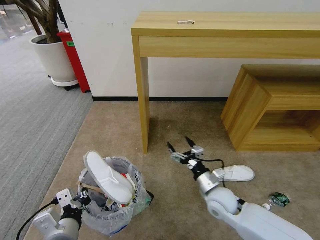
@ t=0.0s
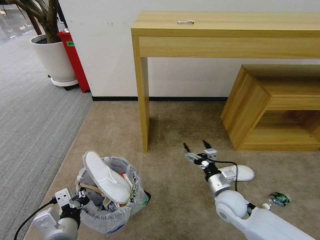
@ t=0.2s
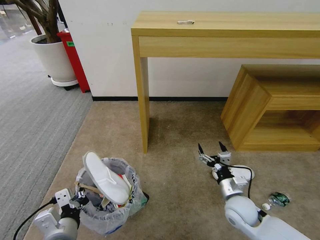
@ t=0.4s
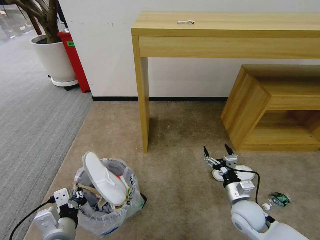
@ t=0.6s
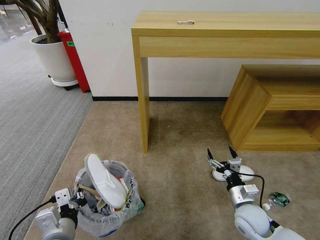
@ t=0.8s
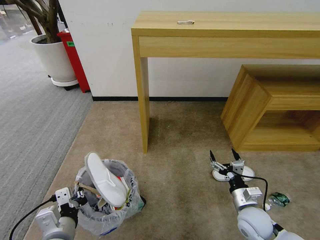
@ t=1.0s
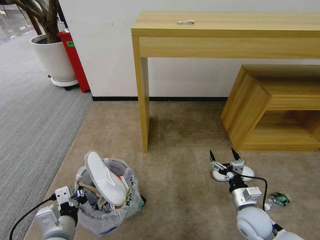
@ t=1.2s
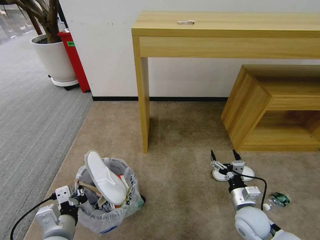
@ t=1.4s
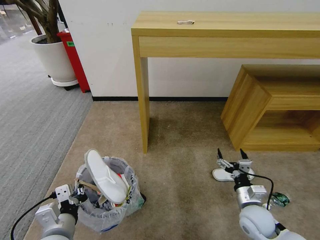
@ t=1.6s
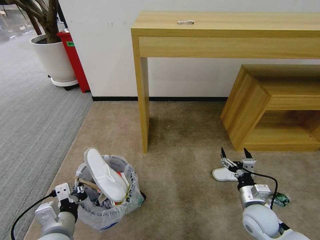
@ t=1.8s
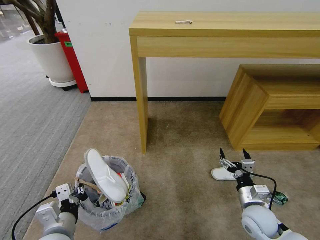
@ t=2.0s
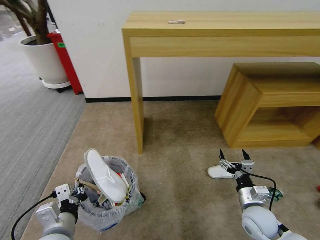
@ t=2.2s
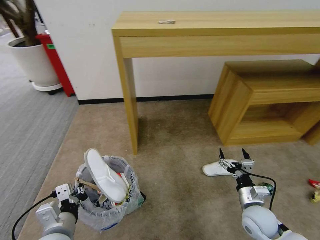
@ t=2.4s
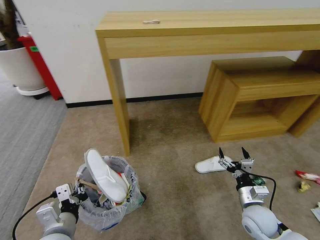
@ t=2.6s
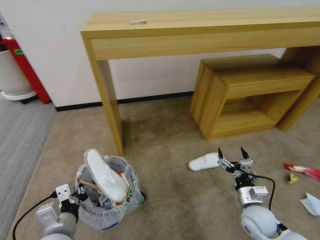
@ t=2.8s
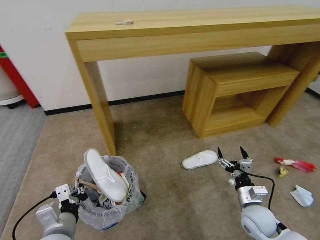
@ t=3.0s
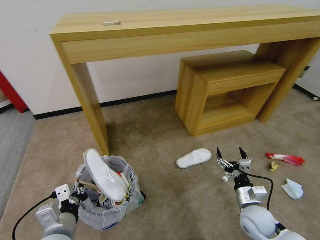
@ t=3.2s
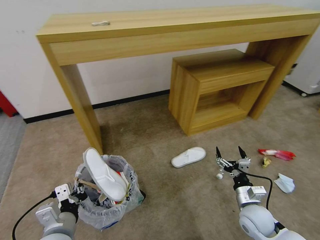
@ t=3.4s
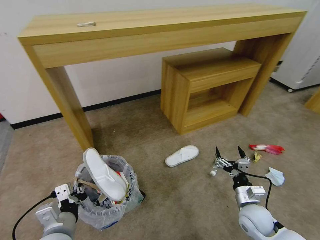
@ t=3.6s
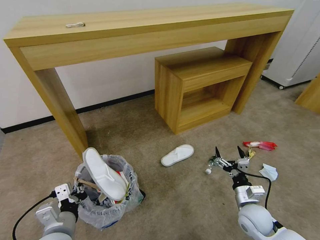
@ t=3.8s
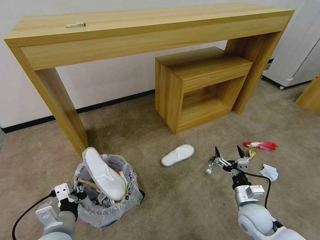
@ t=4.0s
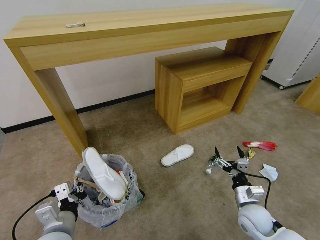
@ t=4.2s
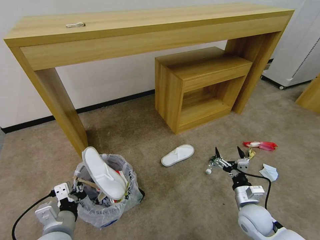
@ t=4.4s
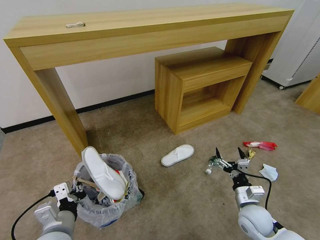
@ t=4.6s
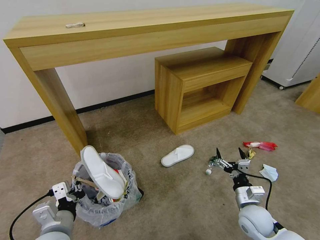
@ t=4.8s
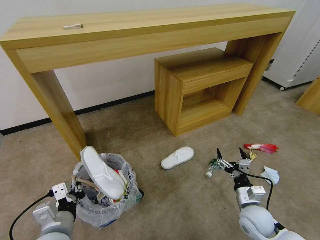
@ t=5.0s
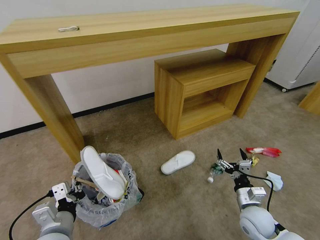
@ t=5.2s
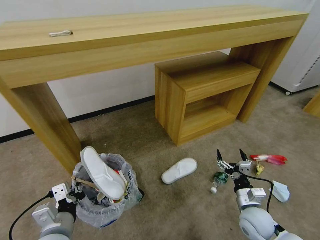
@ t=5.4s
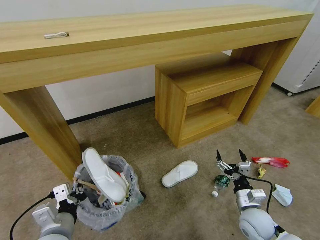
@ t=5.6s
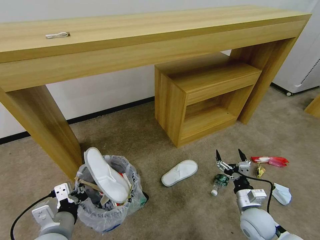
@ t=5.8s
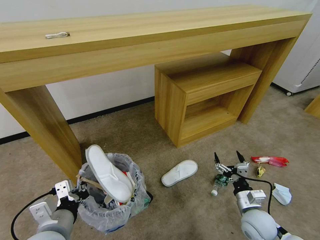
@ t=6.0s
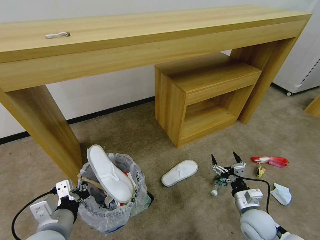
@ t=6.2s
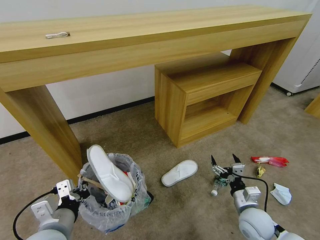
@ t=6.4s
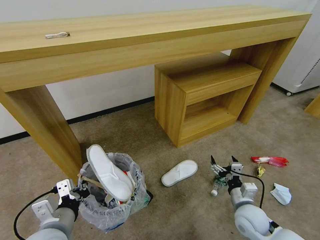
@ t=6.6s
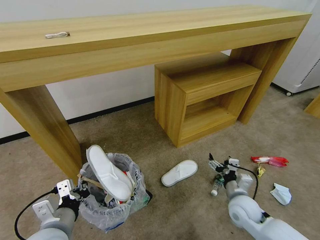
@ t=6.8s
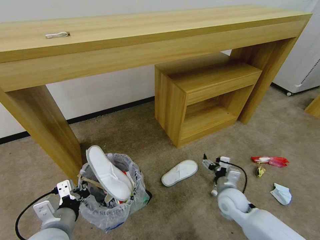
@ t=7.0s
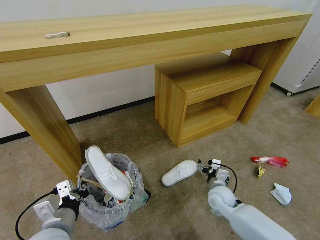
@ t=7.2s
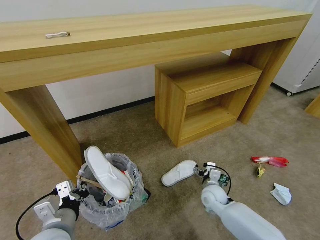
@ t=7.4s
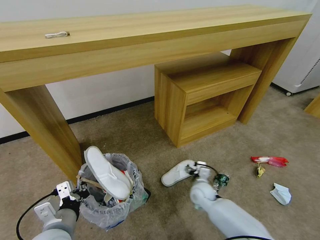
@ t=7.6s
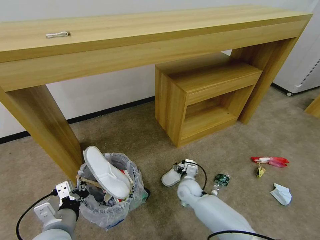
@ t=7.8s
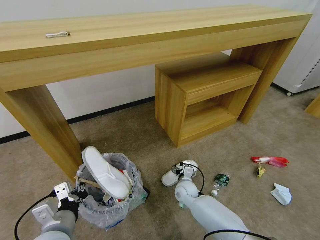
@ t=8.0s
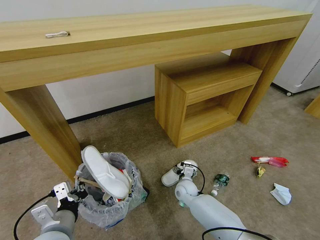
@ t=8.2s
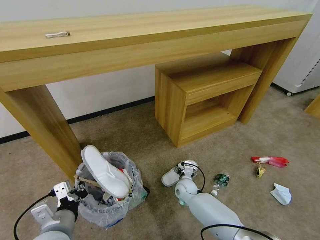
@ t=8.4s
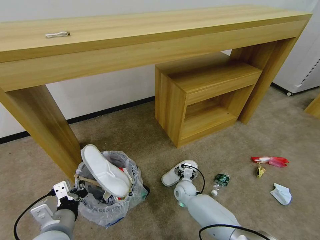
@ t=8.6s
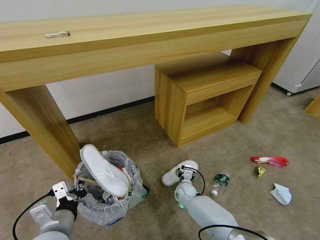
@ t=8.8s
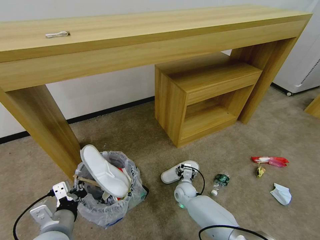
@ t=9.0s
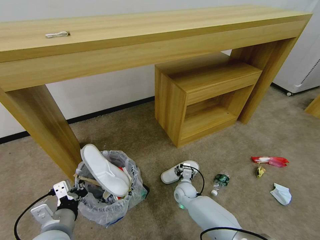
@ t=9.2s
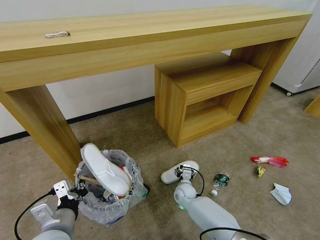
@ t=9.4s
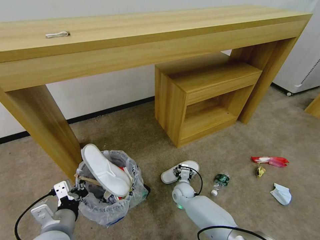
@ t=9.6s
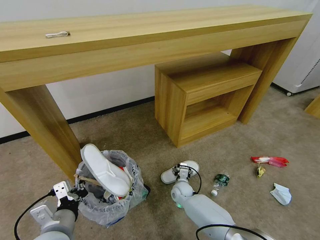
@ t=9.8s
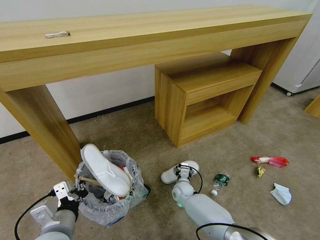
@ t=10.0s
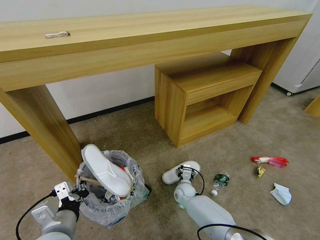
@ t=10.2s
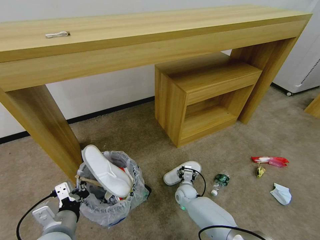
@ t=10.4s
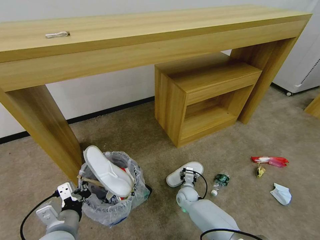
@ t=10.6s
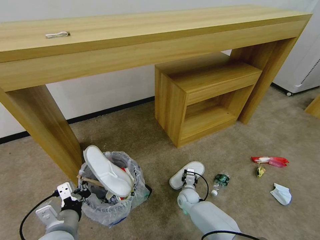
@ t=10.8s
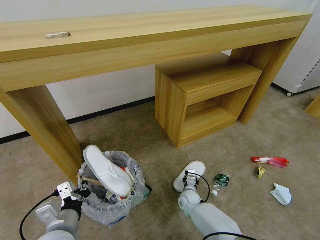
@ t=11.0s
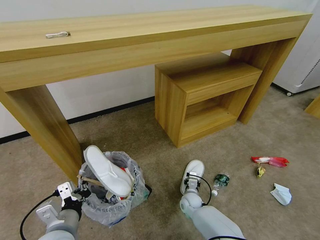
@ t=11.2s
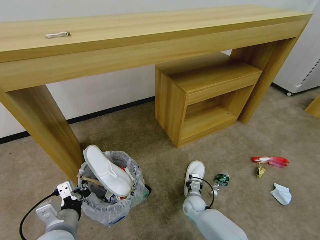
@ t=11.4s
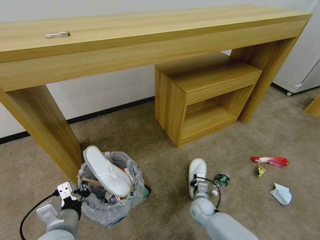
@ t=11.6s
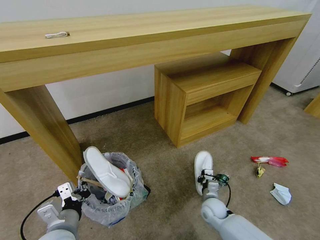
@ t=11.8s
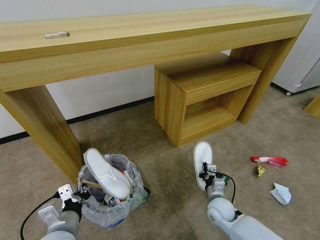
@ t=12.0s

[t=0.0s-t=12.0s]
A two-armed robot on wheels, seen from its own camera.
Task of the whole recording: Pick up the trash bin and place the garbage on the floor into it.
t=0.0s to t=1.6s: The right gripper goes roughly 10 cm to the right and backward.
t=6.0s to t=7.6s: The right gripper heads to the left, forward and downward, covering about 20 cm.
t=7.6s to t=9.0s: The right gripper goes approximately 5 cm downward.
t=9.0s to t=10.4s: The grippers make only small movements.
t=10.4s to t=12.0s: The right gripper is displaced to the right, backward and upward by roughly 15 cm, and closes up.

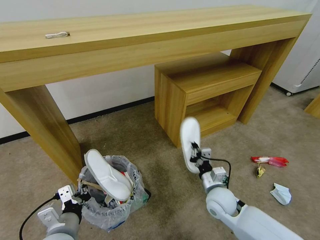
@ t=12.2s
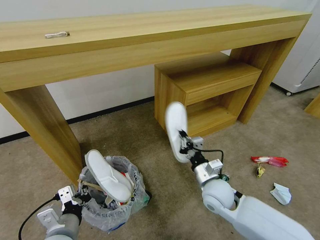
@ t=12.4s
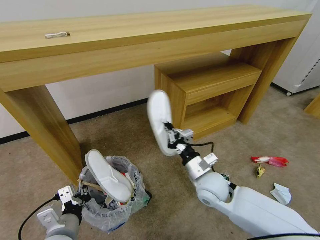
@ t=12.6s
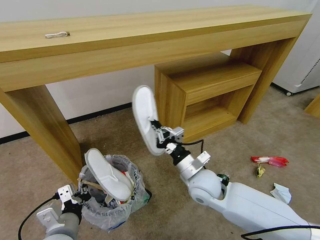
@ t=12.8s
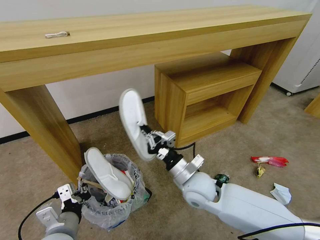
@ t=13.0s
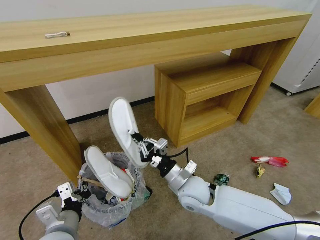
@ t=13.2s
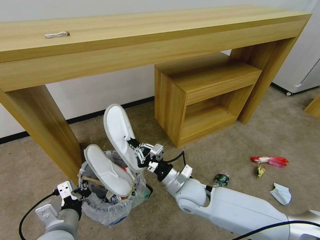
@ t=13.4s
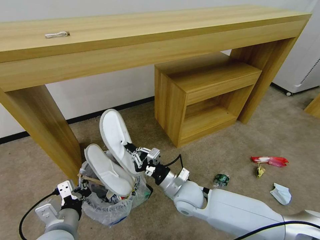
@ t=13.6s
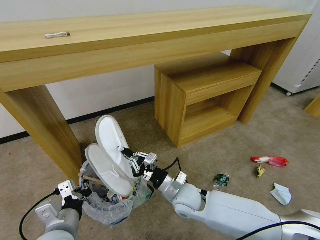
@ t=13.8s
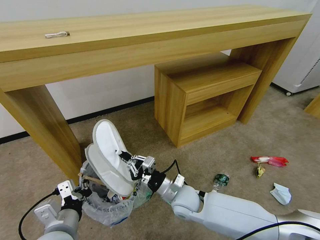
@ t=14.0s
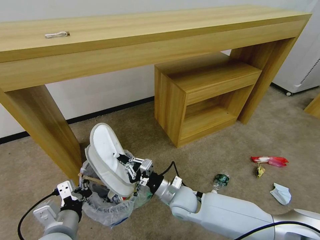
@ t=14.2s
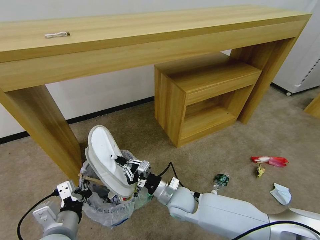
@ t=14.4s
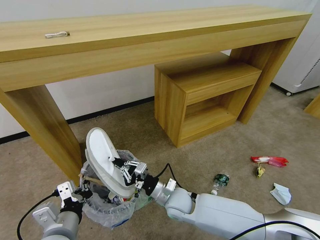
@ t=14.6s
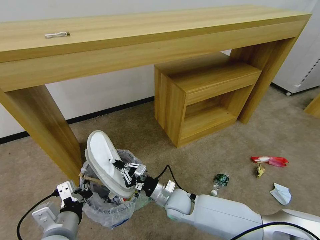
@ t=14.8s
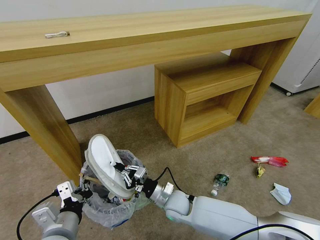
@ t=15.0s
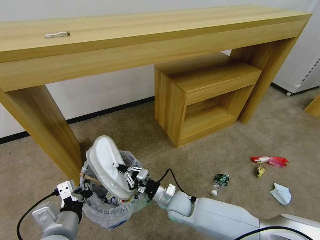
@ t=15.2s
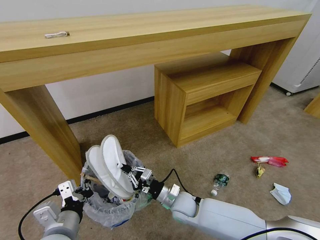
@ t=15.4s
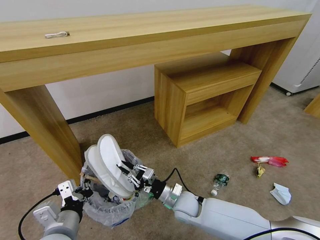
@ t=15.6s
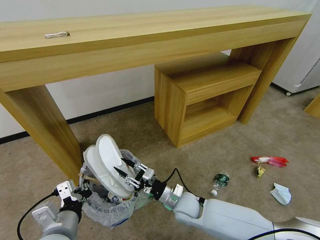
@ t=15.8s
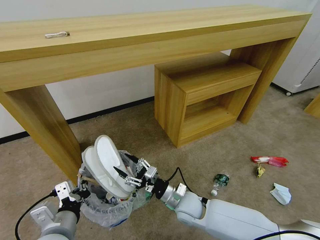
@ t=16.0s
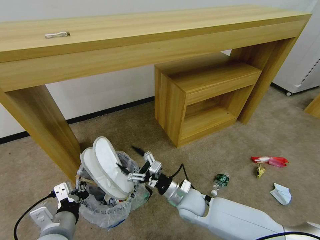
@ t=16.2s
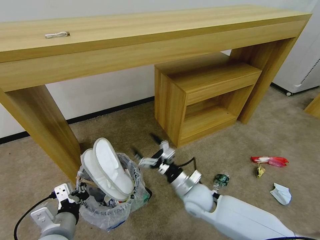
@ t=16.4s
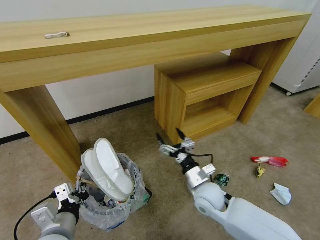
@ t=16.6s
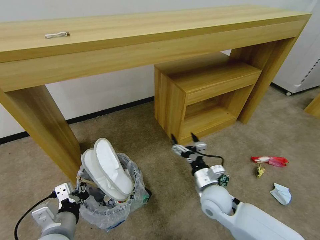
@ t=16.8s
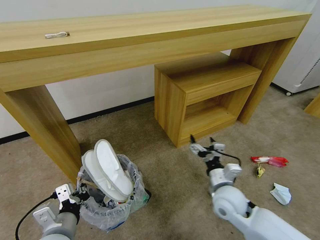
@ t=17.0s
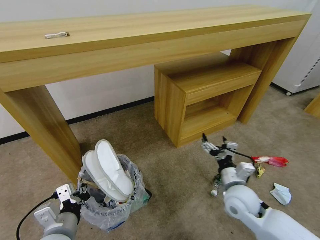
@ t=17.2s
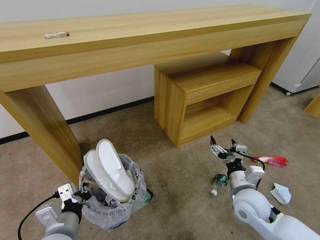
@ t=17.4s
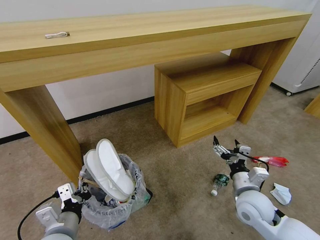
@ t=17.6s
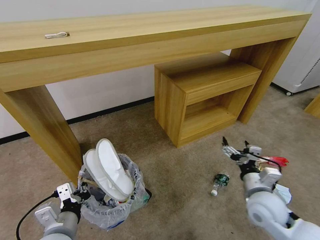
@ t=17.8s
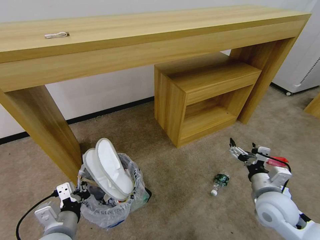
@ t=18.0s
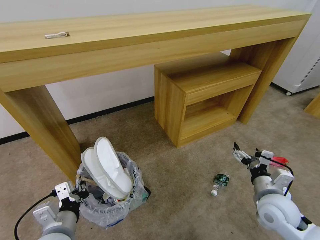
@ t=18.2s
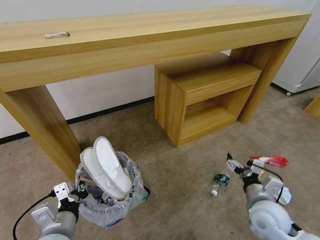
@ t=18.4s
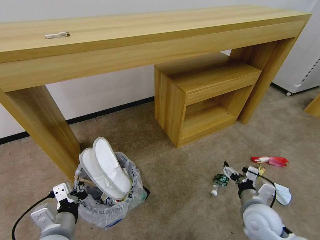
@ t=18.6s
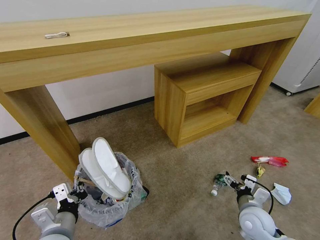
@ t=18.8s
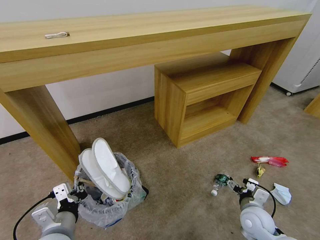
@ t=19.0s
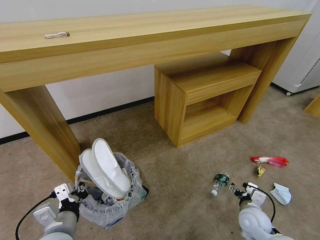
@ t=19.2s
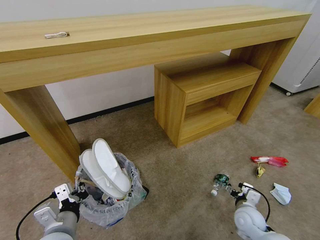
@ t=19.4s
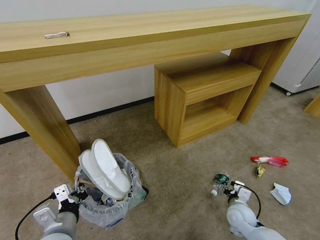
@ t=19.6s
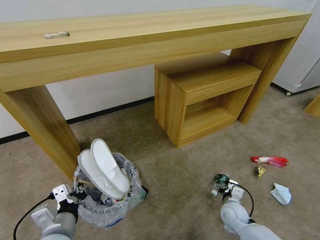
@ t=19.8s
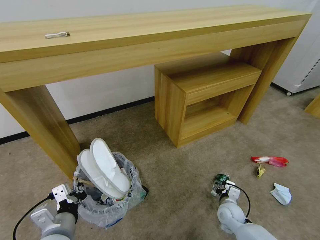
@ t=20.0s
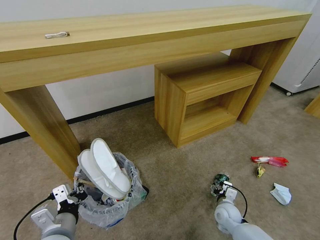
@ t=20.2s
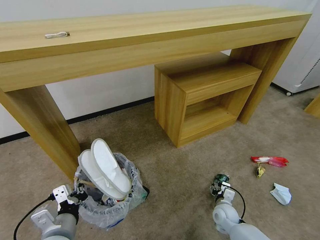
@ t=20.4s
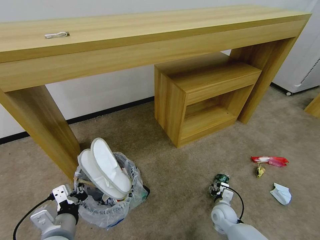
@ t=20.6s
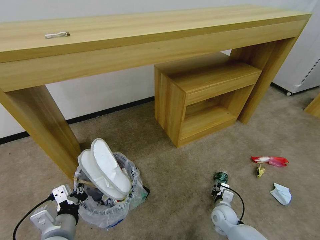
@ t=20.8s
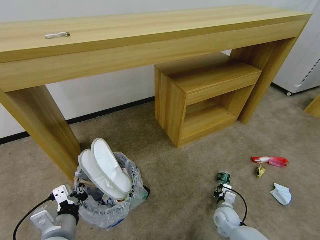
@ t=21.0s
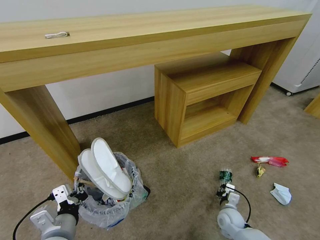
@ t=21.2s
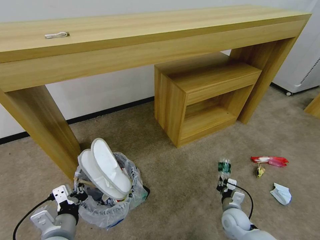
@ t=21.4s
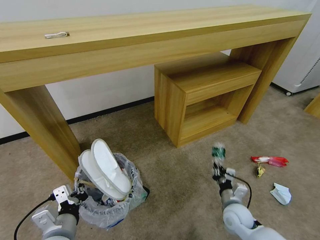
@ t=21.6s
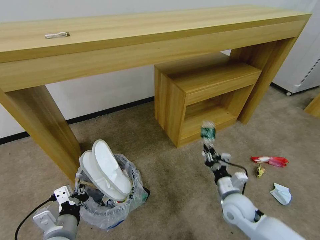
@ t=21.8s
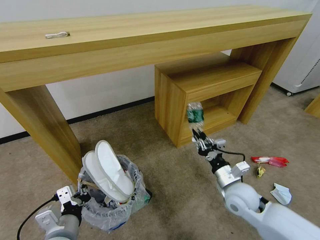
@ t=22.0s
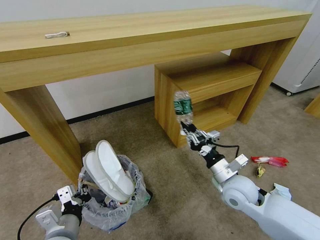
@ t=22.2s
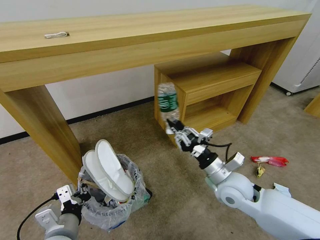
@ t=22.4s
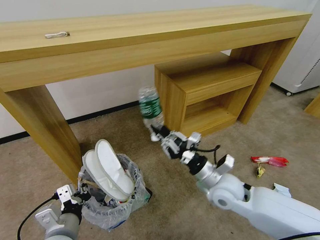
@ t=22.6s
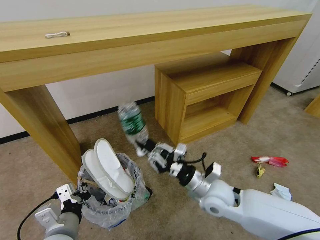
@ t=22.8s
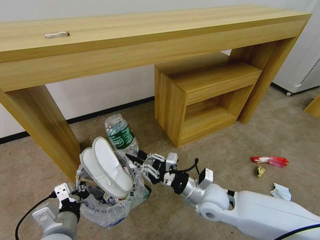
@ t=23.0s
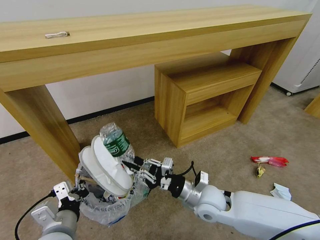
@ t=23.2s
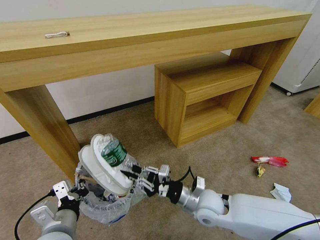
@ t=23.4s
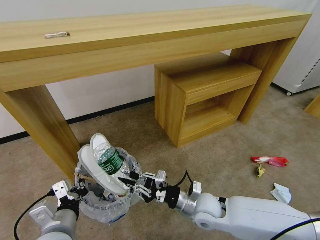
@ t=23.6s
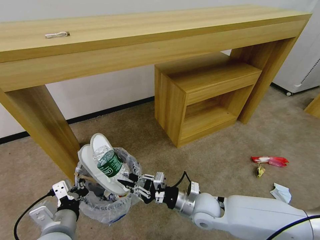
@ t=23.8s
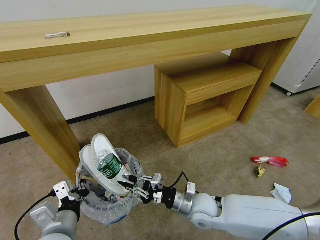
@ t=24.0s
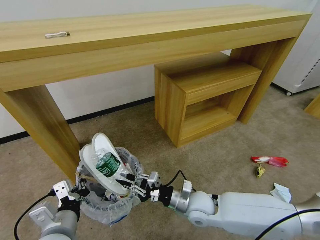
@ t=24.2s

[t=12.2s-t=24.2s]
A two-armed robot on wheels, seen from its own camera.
Task of the whole recording: Pick up the trash bin and place the garbage on the floor into it.
t=12.2s to t=13.8s: The right gripper heads to the left and upward, covering approximately 15 cm.
t=13.8s to t=15.2s: The right gripper goes approximately 10 cm downward.
t=15.2s to t=16.6s: The right gripper heads to the right and upward, covering roughly 10 cm, and opens up.
t=16.6s to t=18.2s: The right gripper shifts about 20 cm to the right.
t=18.2s to t=19.8s: The right gripper shifts about 20 cm downward.
t=19.8s to t=21.2s: The right gripper closes its fingers.
t=21.2s to t=22.6s: The right gripper travels upward by approximately 25 cm.
t=22.6s to t=24.2s: The right gripper is displaced downward and to the left by approximately 10 cm.
